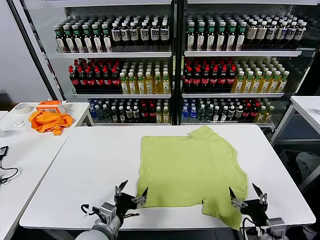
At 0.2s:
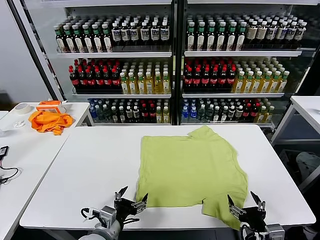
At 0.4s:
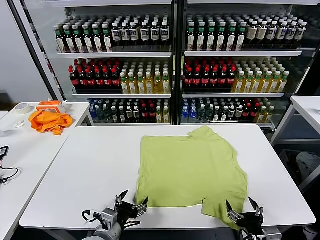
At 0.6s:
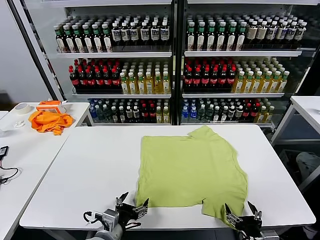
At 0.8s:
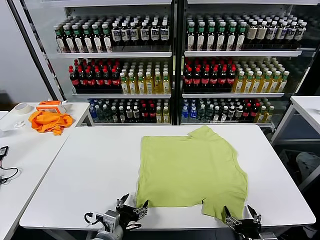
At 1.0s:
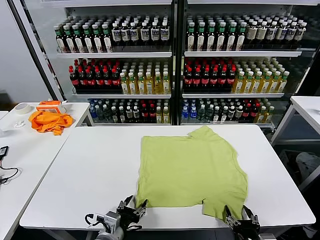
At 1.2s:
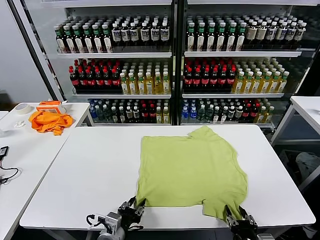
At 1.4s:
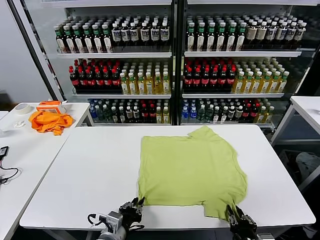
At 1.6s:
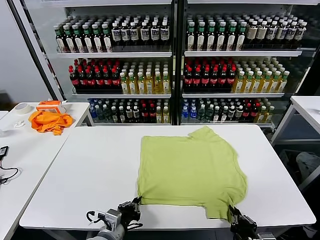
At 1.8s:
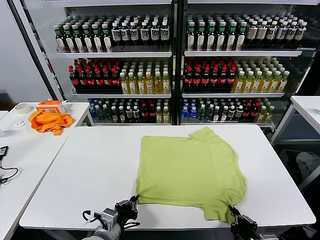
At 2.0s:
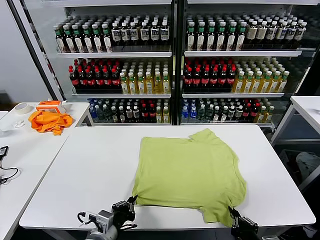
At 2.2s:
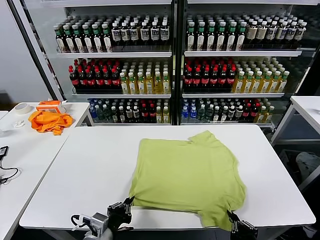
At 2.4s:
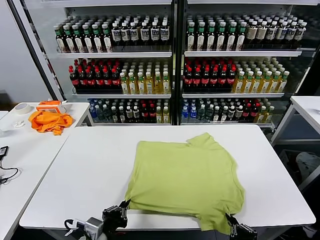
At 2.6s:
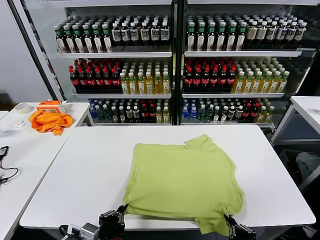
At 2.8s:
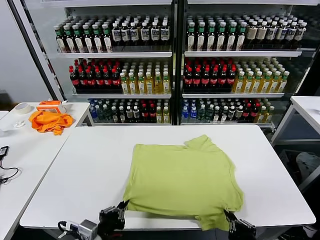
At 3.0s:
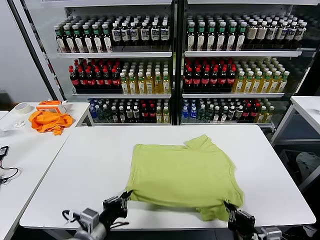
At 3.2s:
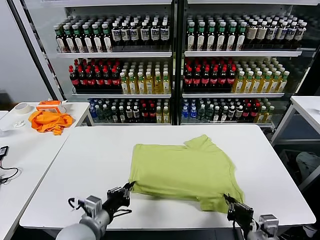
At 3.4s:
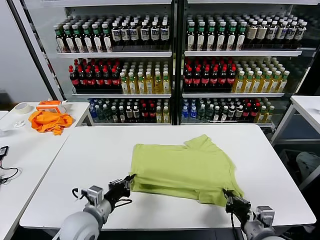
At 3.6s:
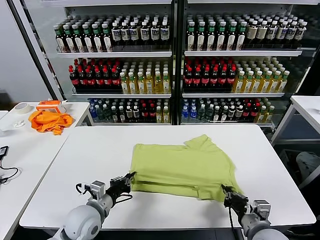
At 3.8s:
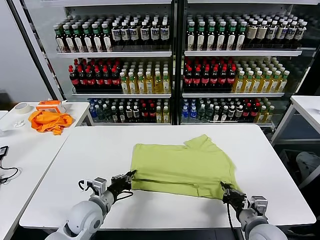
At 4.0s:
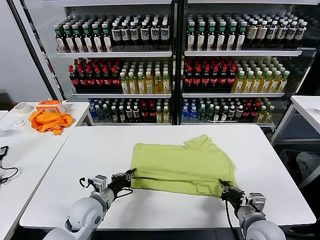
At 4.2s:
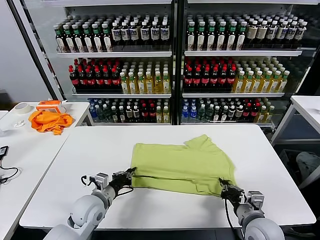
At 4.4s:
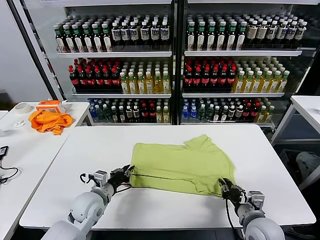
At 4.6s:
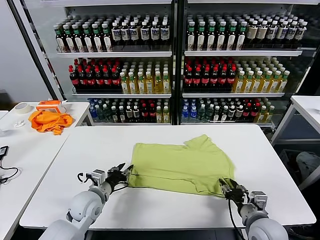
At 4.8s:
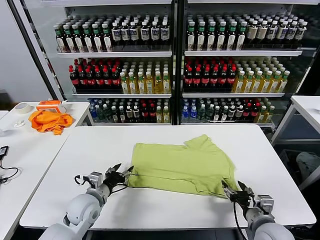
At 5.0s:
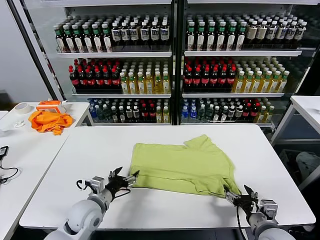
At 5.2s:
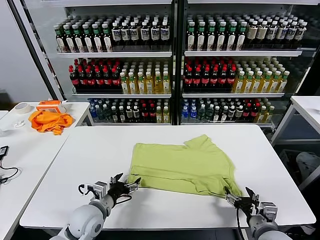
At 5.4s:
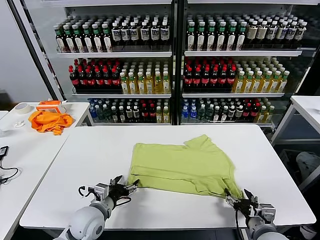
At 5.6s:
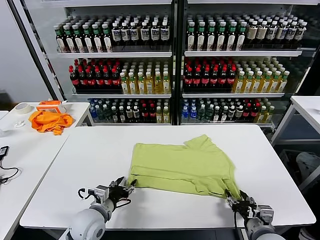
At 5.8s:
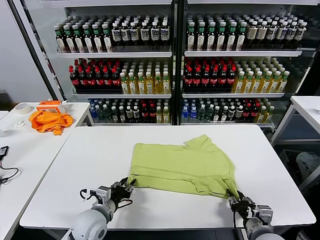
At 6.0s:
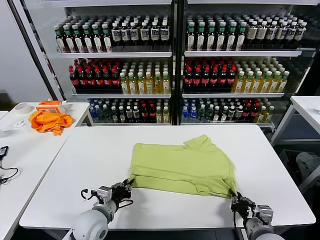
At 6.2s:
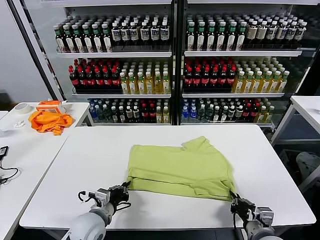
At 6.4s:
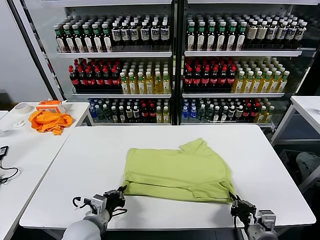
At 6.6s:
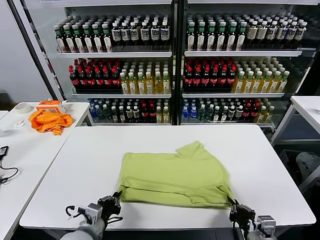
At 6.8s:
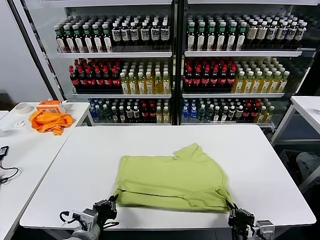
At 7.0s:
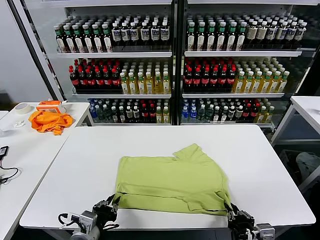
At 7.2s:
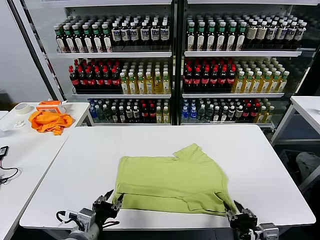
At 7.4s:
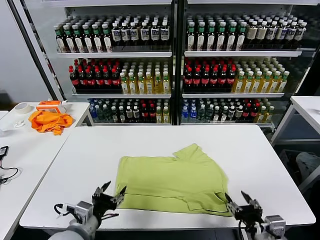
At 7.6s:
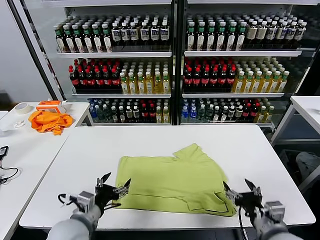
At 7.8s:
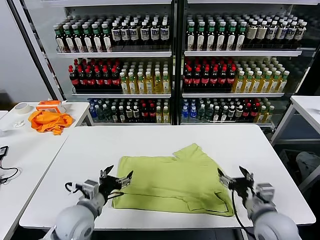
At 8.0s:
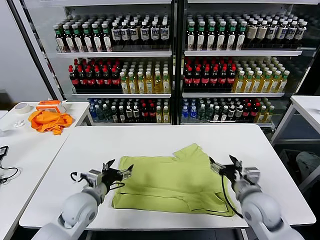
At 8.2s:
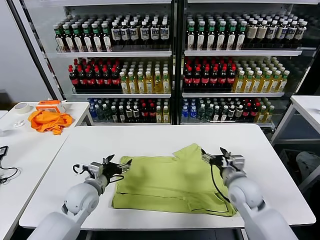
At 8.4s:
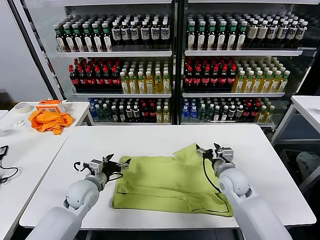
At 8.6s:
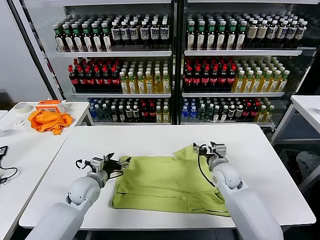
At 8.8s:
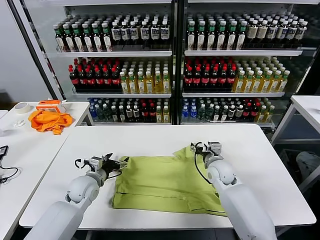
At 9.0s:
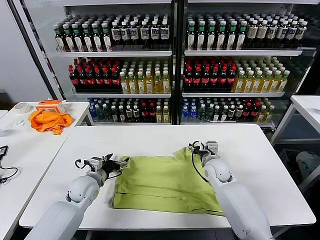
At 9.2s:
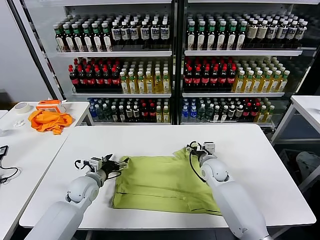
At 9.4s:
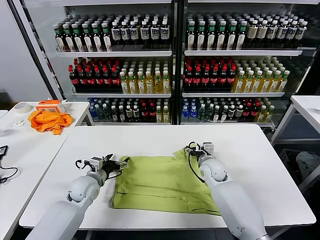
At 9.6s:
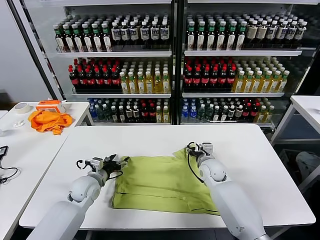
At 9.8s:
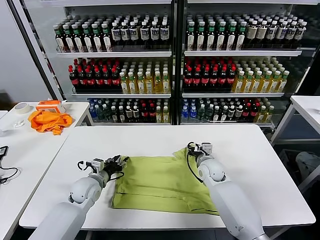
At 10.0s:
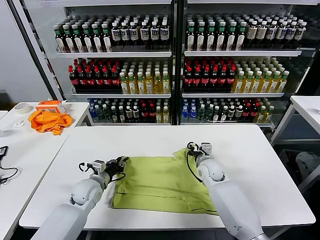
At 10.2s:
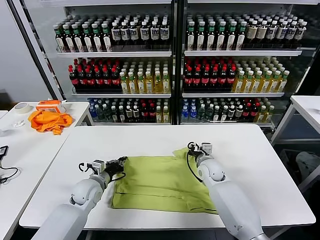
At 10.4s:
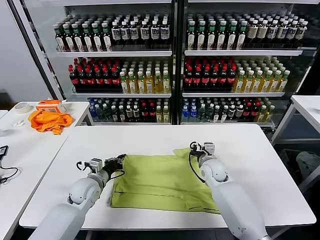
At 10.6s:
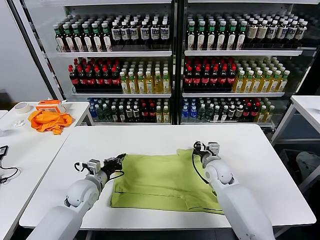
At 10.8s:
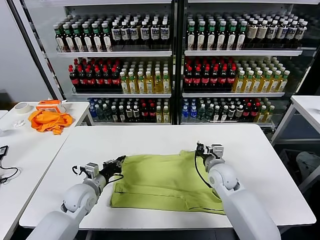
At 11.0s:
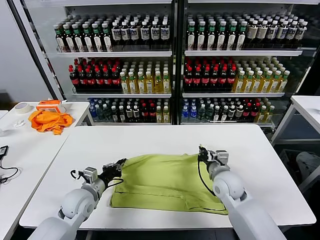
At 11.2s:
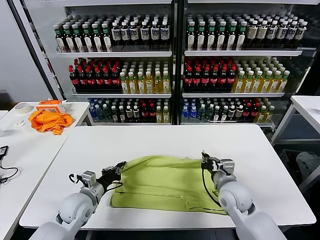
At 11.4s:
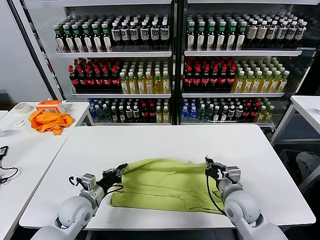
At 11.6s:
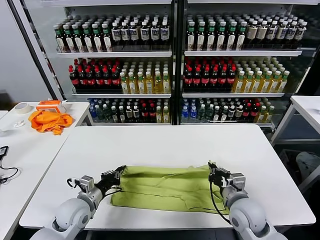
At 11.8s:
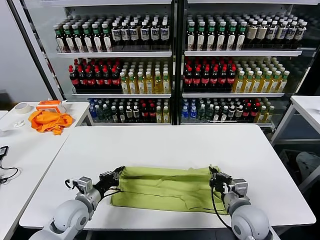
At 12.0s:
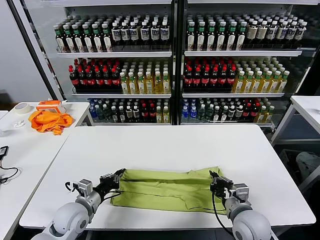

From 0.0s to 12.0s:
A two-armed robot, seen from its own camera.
Task of the whole recording: fold and organize the clothes.
Step, from 0.0s to 1.4s: use both grippers simultaneously to clamp the lower edge of the clothing fabric.
Step, from 1.6s to 4.6s: use both grippers to drag the lower edge of the fabric forward and fold it over the upper edge.
Step, from 4.8s to 7.0s: Drag the clothes downward with both gripper.
Step, from 7.2s to 10.2s: use both grippers simultaneously to clamp the upper edge of the clothing fabric.
From 1.6s to 3.0s: The left gripper is displaced upward by some 5 cm. The right gripper changes place by approximately 5 cm.
From 3.0s to 4.4s: The left gripper heads forward and downward, covering about 15 cm, while the right gripper moves forward, roughly 10 cm, and opens up.
From 4.4s to 6.0s: The left gripper goes roughly 5 cm backward, and opens and closes again. Meanwhile the right gripper closes its fingers.
From 6.0s to 7.6s: The right gripper moves upward, about 5 cm, goes backward and returns, approximately 5 cm each way, and opens. Meanwhile the left gripper heads upward and backward, covering about 10 cm, and opens its fingers.
From 7.6s to 9.0s: The two grippers go some 20 cm forward.
From 9.0s to 10.4s: The right gripper closes, while the left gripper closes.
From 10.4s to 12.0s: The left gripper shifts roughly 10 cm backward. Meanwhile the right gripper is displaced backward by some 20 cm.

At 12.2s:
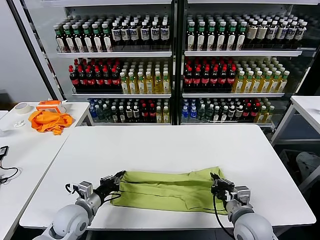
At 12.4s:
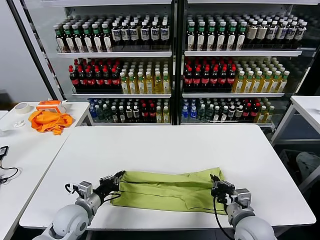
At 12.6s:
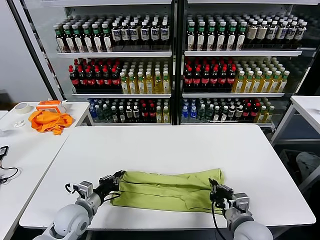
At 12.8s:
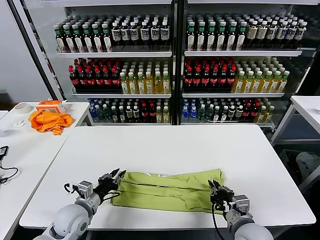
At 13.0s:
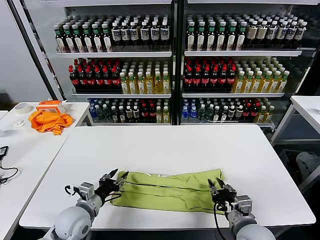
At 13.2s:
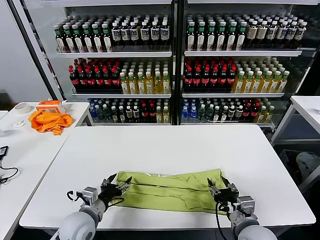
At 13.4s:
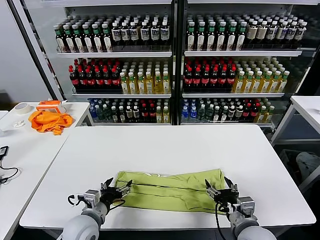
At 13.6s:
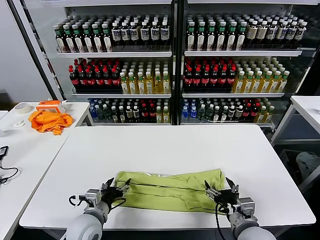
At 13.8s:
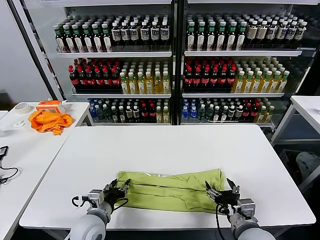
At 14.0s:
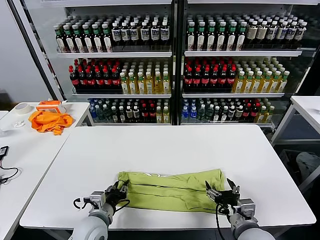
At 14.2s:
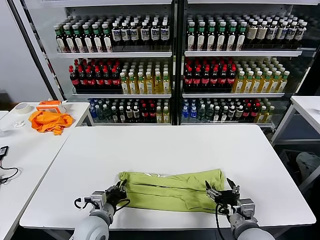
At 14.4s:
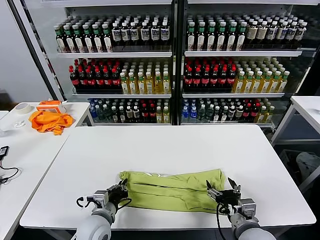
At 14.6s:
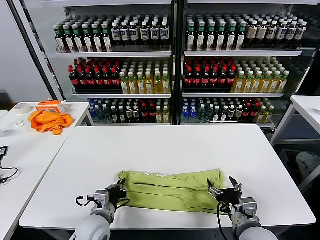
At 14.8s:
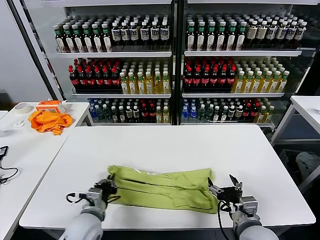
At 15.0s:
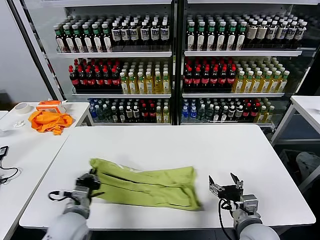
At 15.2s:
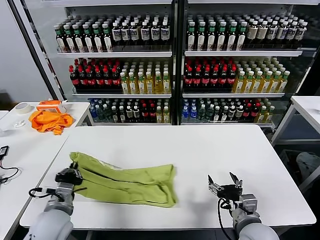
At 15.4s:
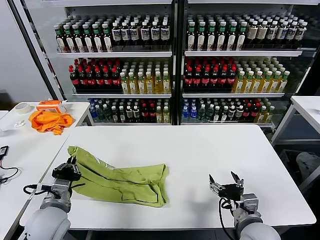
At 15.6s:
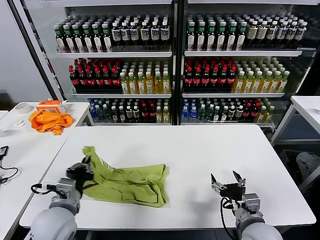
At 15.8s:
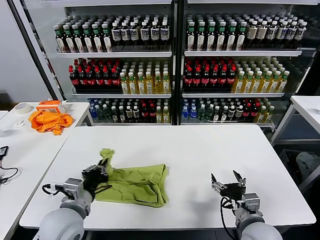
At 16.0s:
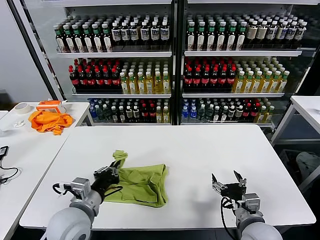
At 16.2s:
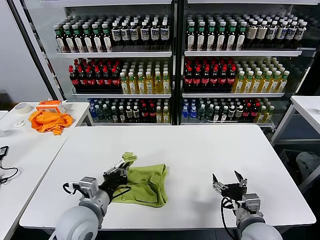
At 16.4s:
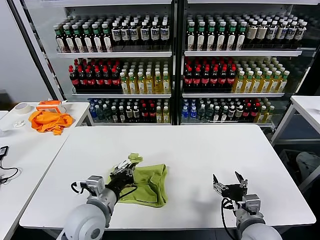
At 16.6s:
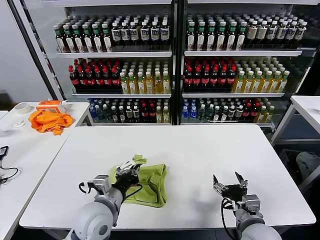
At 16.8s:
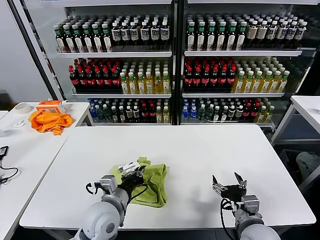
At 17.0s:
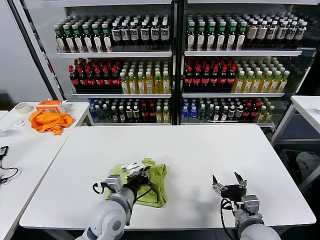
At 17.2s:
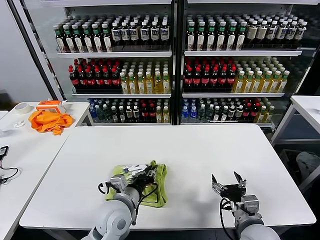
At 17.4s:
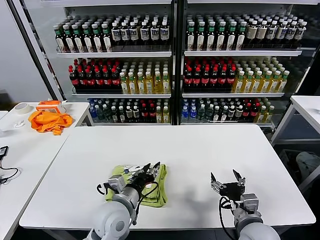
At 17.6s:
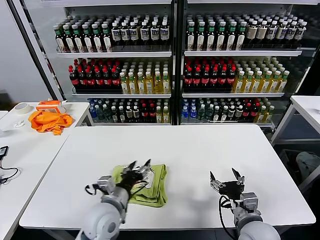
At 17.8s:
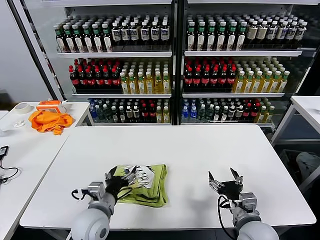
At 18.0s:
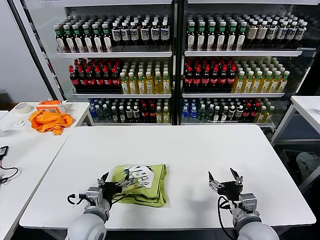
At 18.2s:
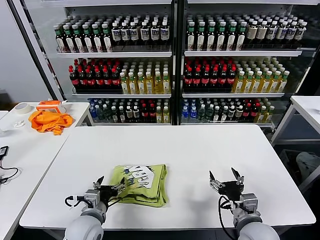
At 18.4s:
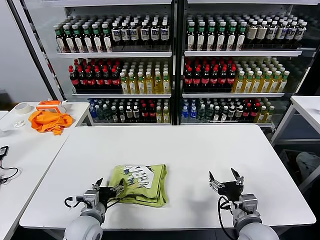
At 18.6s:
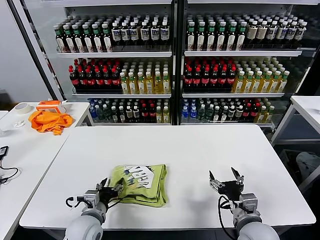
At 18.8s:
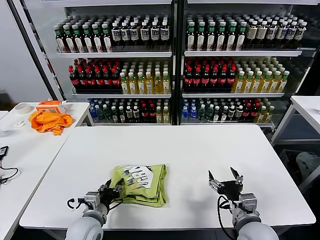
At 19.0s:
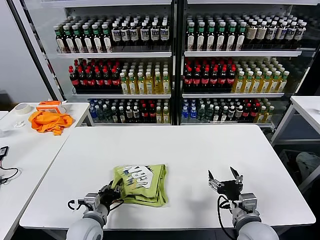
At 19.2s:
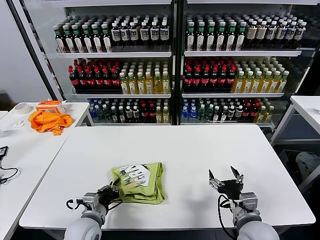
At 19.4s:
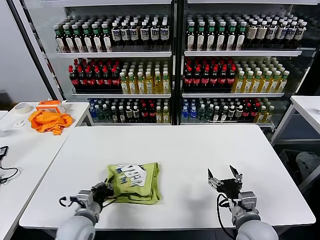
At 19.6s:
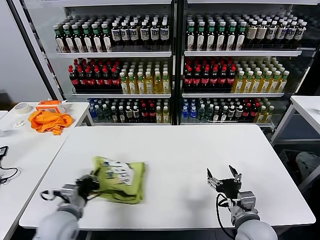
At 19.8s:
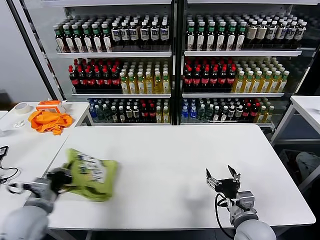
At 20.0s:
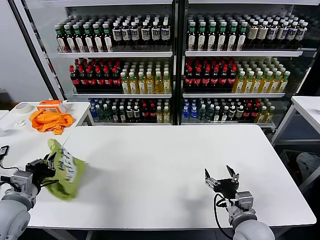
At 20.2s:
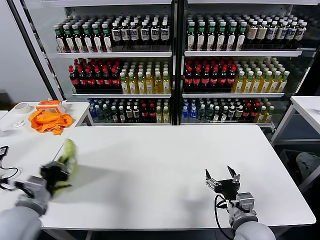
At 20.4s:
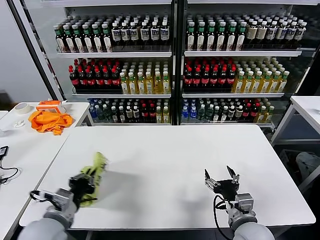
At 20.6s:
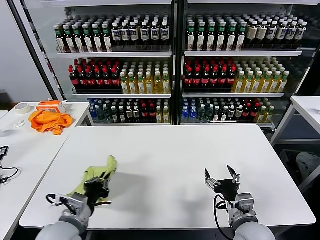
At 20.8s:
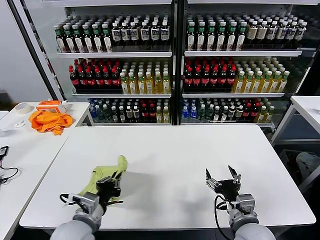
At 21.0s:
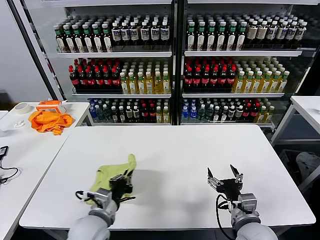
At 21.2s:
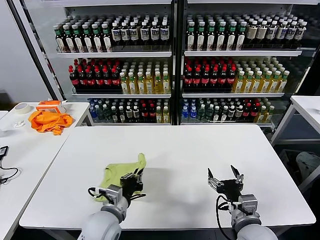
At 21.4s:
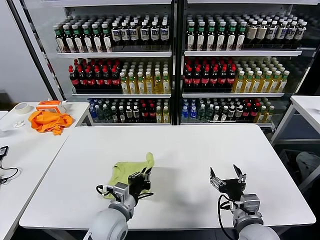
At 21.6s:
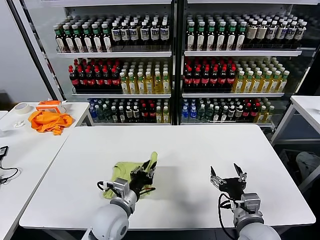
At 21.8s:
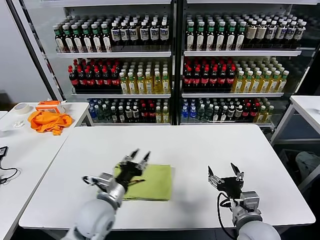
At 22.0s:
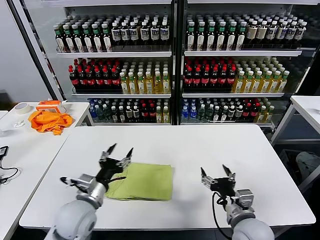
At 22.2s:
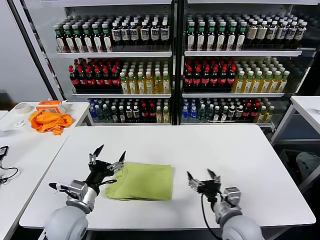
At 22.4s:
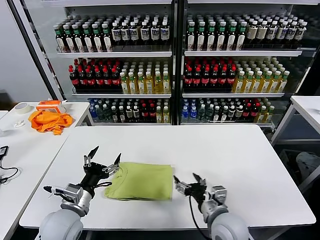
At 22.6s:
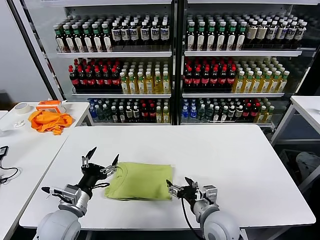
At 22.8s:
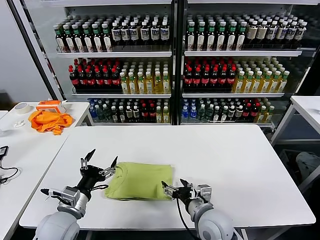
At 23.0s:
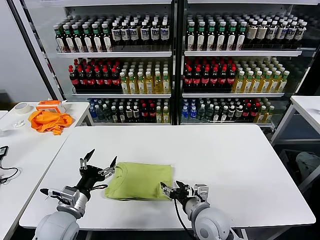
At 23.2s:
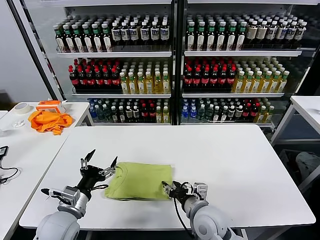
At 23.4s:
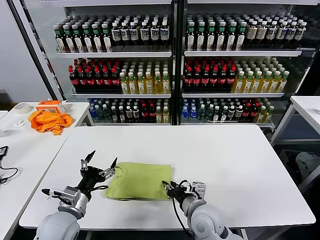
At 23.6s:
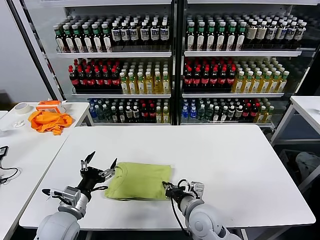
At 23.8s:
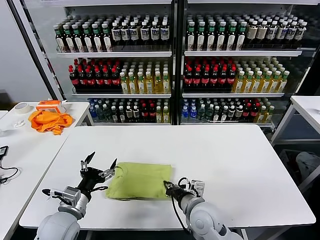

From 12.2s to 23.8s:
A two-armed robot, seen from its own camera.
Task of the whole recording: fold and organize the clothes.
Step, from 13.4s to 14.2s: use the left gripper to clamp the left edge of the fabric.
Step, from 14.4s to 17.2s: use the left gripper to drag the left edge of the fabric to the left and folds it over the right edge.
Step, from 17.4s to 21.6s: Flip the folded clothes over with left gripper.
From 12.2s to 13.6s: The left gripper heads to the right, covering about 5 cm, and opens its fingers, while the right gripper opens its fingers.
From 13.6s to 15.0s: The left gripper closes its fingers.
From 15.0s to 16.6s: The left gripper is displaced to the right by roughly 5 cm.
From 16.6s to 18.0s: The left gripper shifts about 5 cm downward, and opens its fingers.
From 18.0s to 19.4s: The left gripper closes.
From 19.4s to 21.0s: The left gripper shifts about 5 cm upward, and reaches approximately 15 cm to the left, then returns.
From 21.0s to 22.4s: The grippers both shift to the left by roughly 5 cm. The left gripper opens up.
From 22.4s to 23.8s: The right gripper heads to the left, covering about 5 cm, and closes its fingers.
